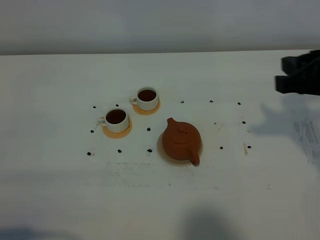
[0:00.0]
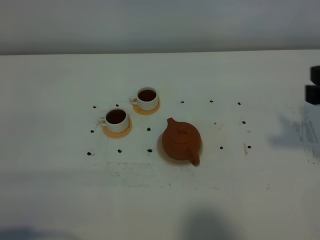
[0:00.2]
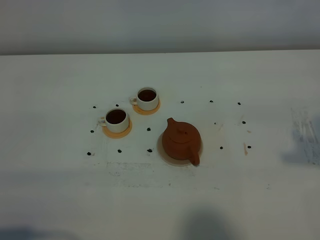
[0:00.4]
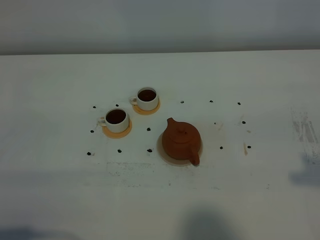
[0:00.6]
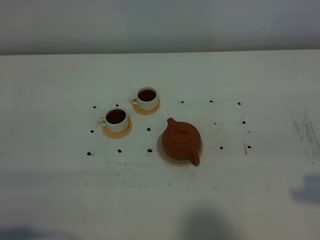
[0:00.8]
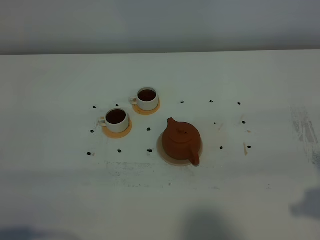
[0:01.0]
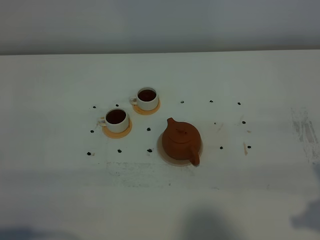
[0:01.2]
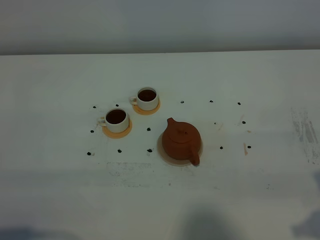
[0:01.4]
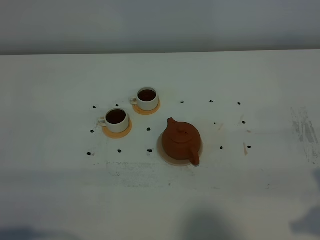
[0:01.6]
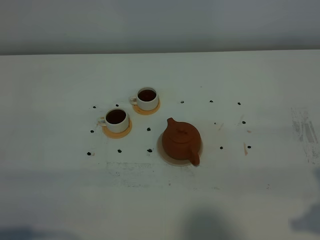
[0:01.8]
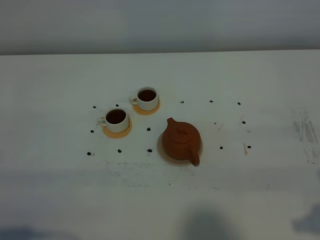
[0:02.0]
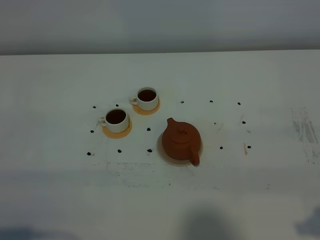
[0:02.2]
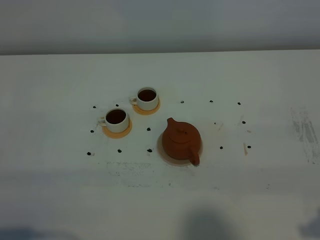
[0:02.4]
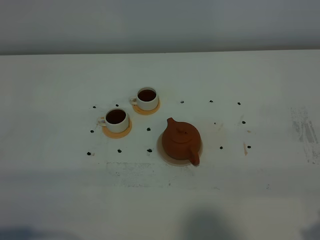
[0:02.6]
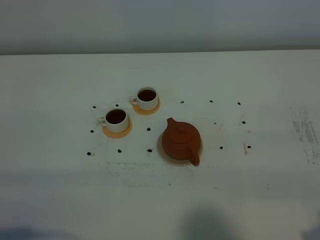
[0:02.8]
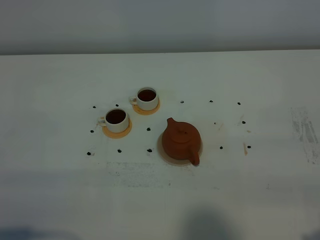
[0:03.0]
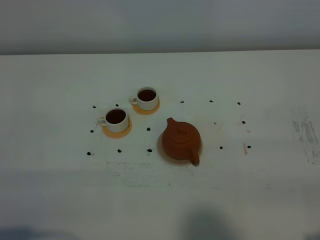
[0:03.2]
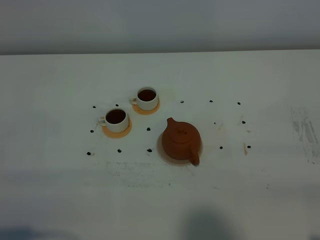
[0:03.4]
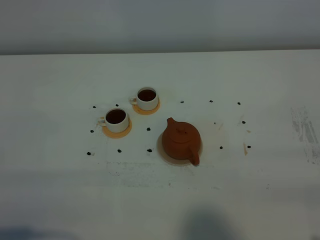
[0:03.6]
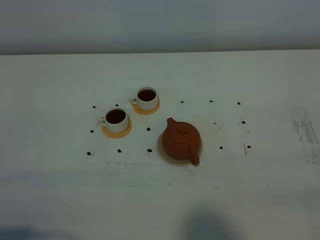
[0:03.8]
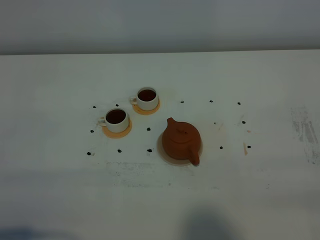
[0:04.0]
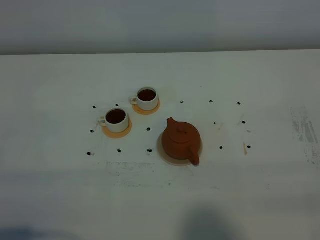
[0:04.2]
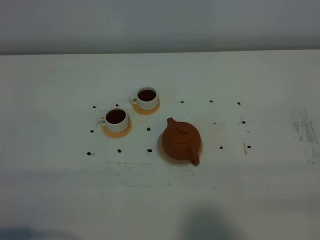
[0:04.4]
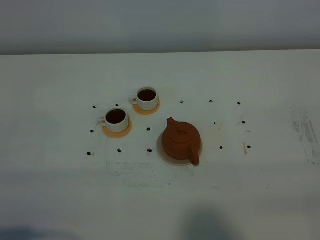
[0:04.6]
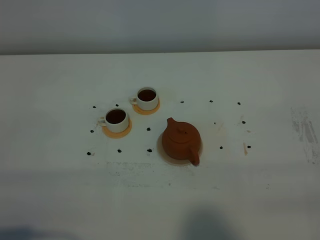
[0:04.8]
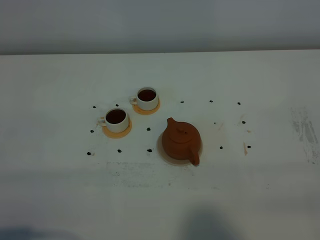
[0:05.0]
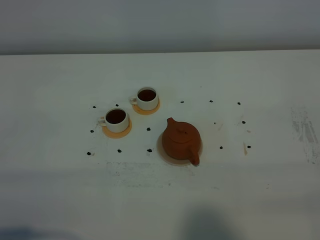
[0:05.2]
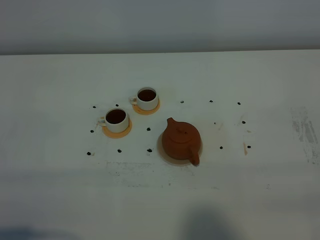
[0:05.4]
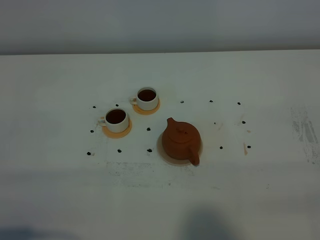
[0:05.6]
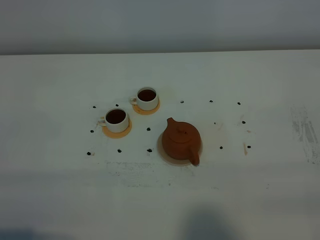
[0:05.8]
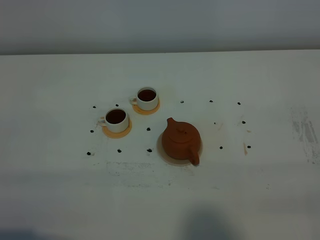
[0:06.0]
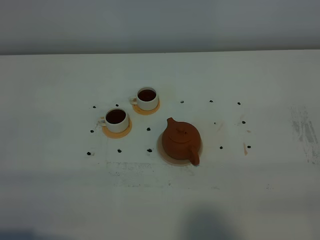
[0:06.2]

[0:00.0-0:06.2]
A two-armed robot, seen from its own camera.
Task of the whole recording: grasp the brown teapot and pour the tea into the two white teacups one by one, put the brown teapot back in its original place.
0:00.0 to 0:01.6: The right gripper travels backward and downward by some 15 cm, and closes its fingers.
0:04.6 to 0:06.2: Both grippers stay put.
